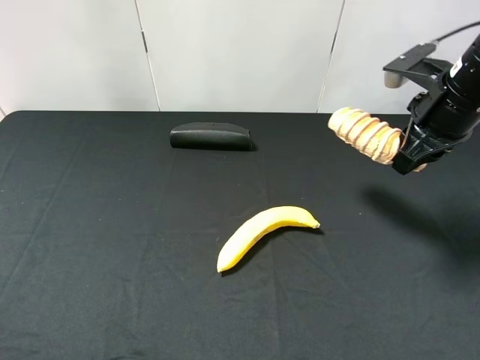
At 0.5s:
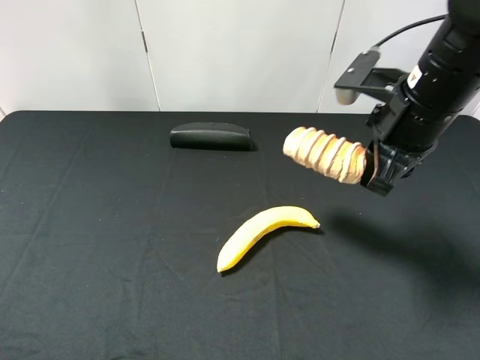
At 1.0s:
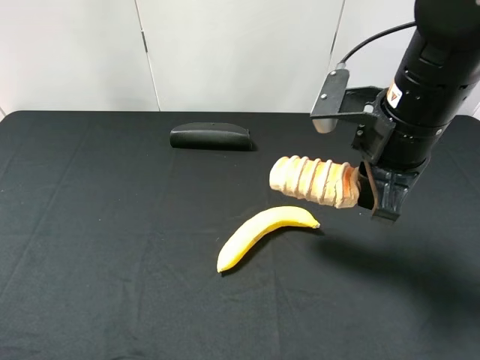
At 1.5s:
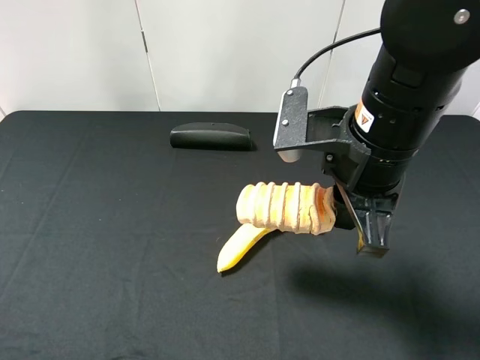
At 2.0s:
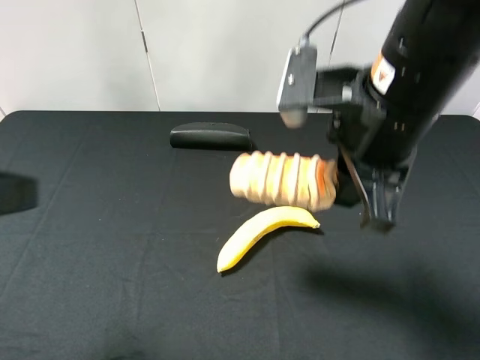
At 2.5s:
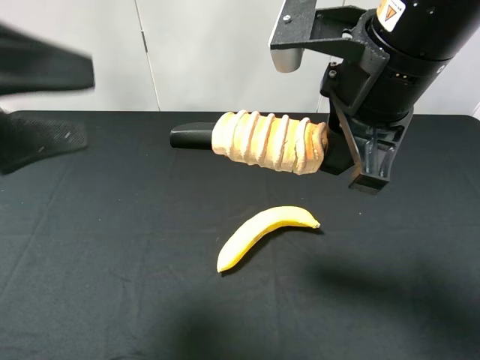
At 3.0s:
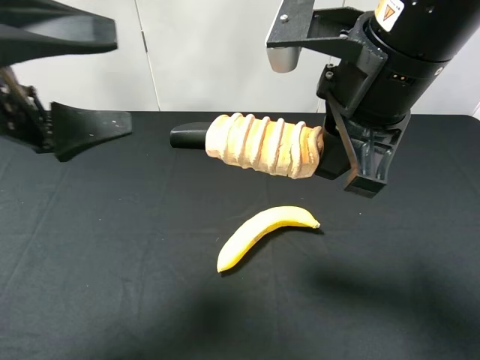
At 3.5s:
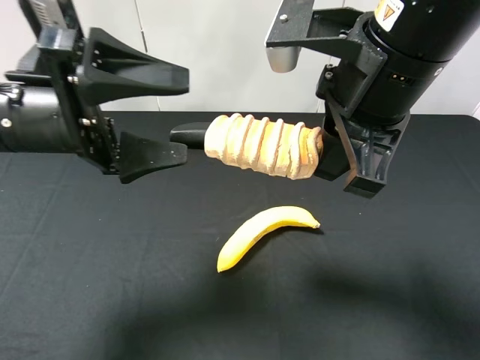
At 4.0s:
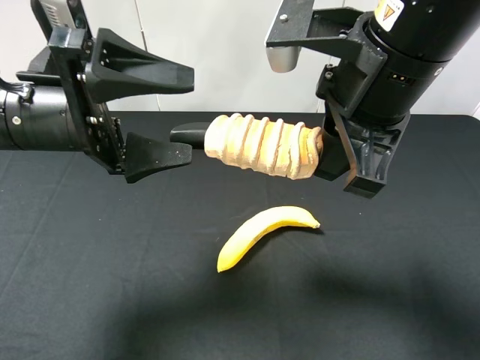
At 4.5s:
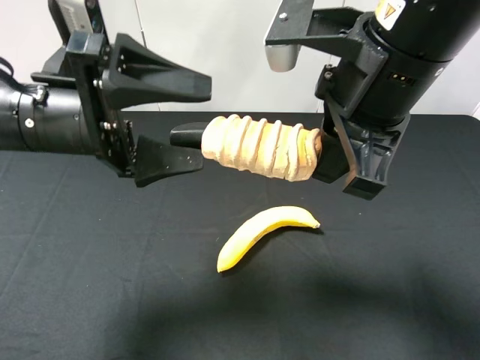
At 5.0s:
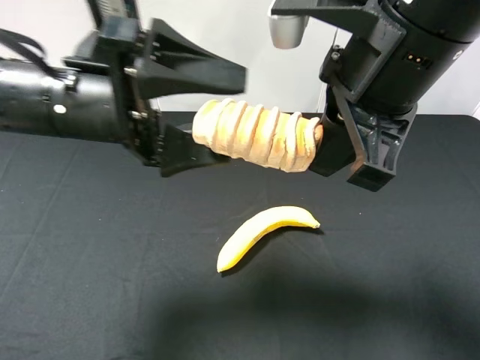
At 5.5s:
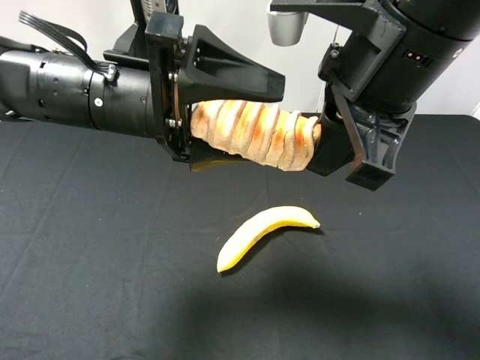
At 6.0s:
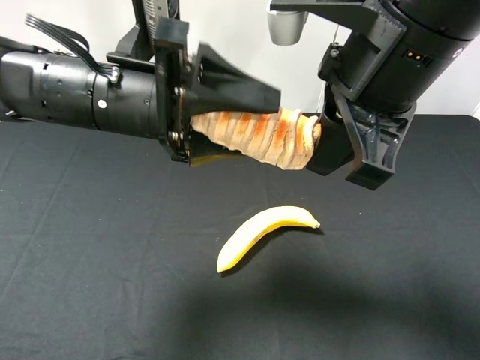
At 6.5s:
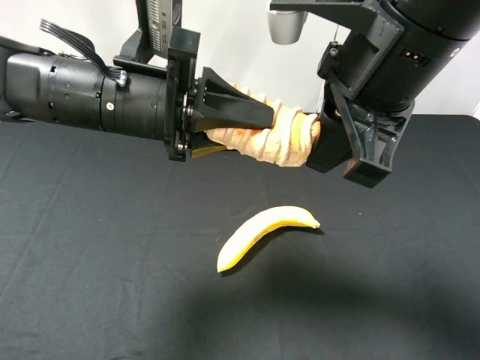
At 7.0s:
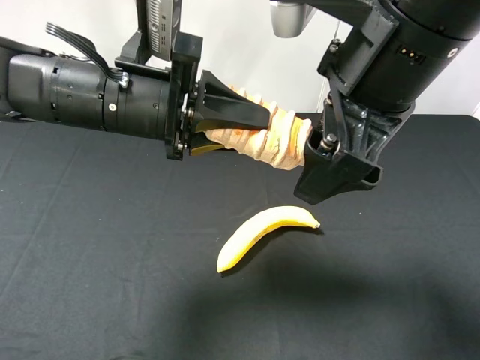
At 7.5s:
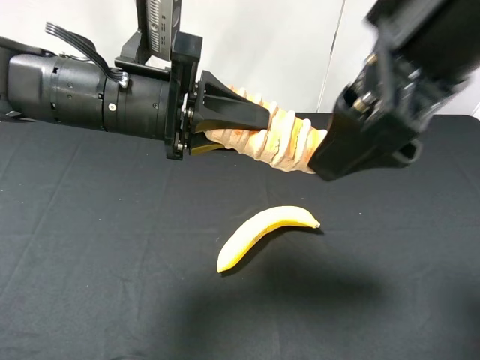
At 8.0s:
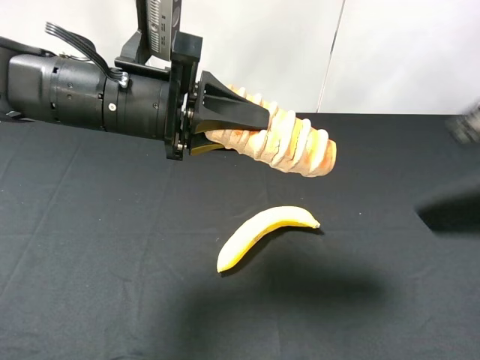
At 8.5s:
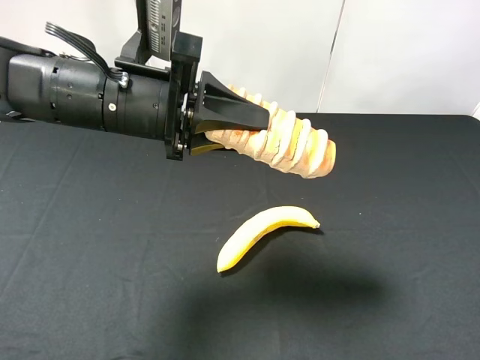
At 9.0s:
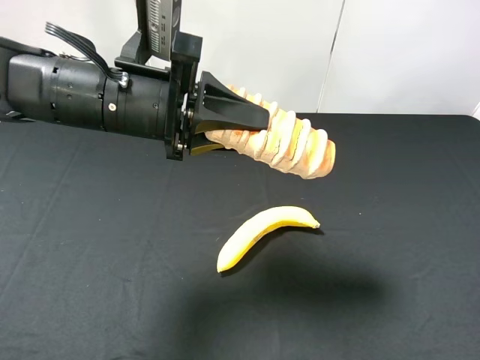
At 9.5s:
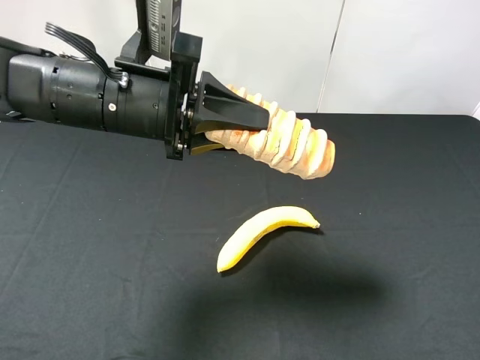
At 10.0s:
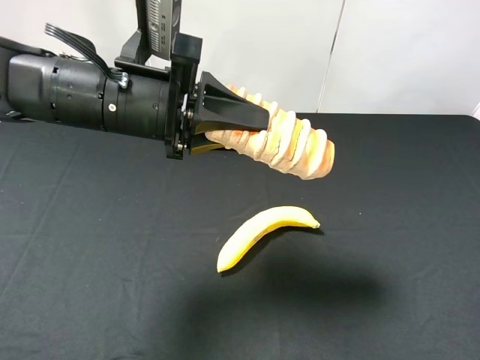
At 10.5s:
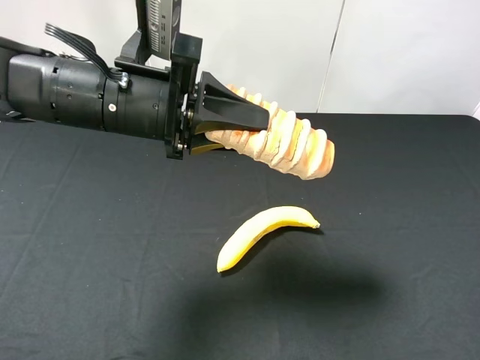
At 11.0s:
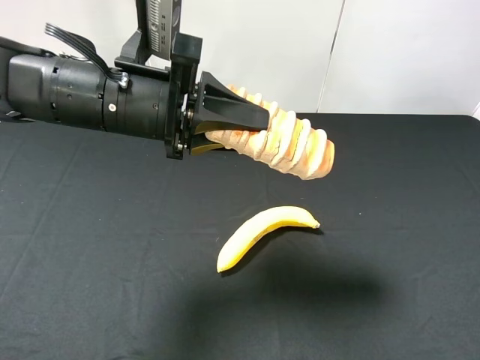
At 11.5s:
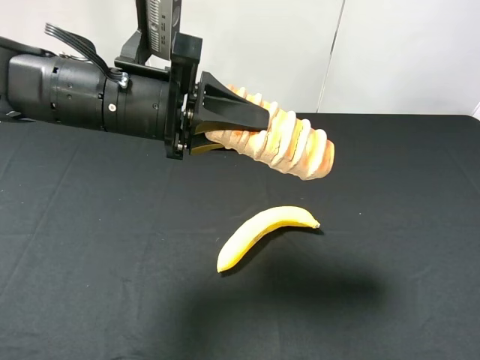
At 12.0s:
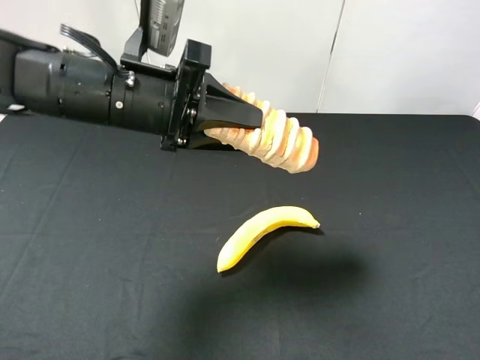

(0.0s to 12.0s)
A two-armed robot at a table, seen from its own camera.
Task of the whole recording: use the right gripper to pick up the item and transfer it from the right gripper to the left gripper.
Step, 0.0s - 7.0s: Pass the bread to the left gripper.
0.0s - 2.0s: The right gripper shifts approximately 15 cm to the left and backward, while the left gripper moves forward and to the right, about 10 cm.
2.0s - 4.0s: The left gripper goes some 15 cm forward, to the right and downward.
4.0s - 6.0s: The left gripper shifts some 5 cm to the right, and closes up.
6.0s - 8.0s: The left gripper closes its fingers, while the right gripper travels to the right and backward by about 15 cm, and opens up.
8.0s - 10.0s: The right gripper travels downward, to the right and backward by approximately 15 cm.

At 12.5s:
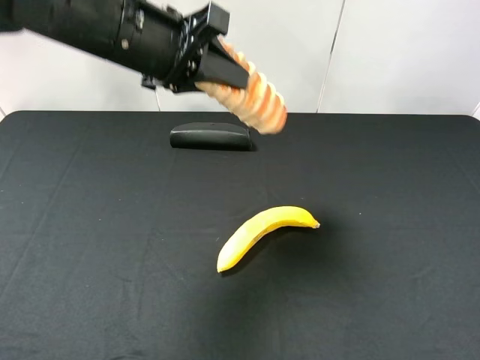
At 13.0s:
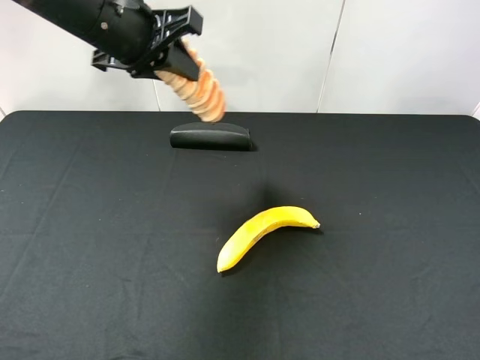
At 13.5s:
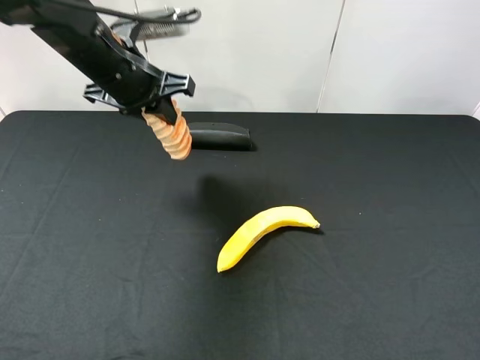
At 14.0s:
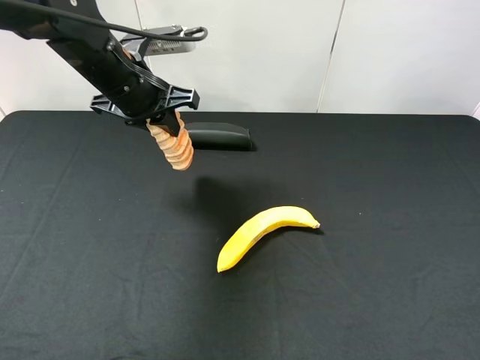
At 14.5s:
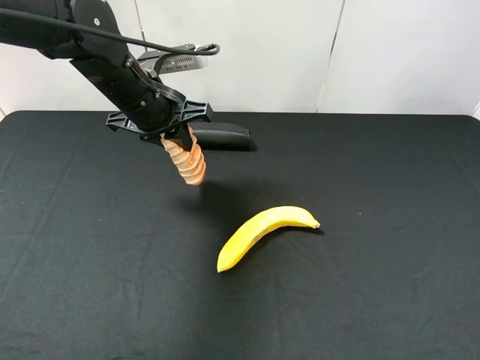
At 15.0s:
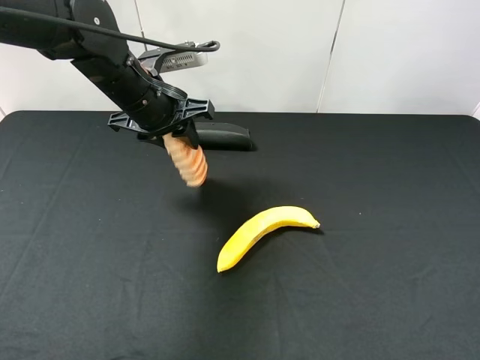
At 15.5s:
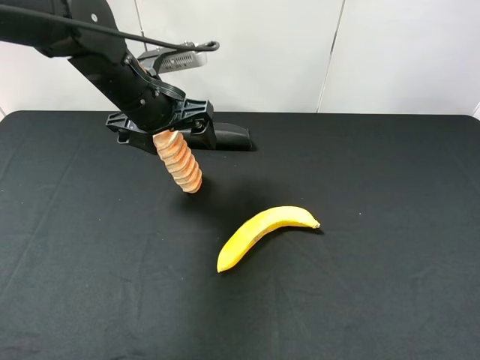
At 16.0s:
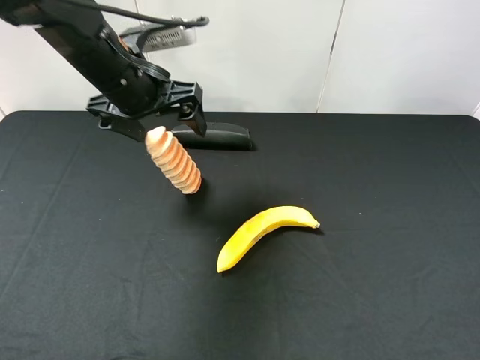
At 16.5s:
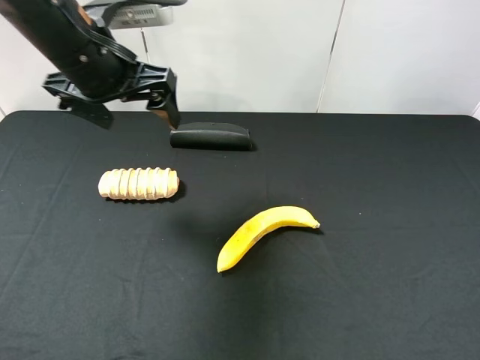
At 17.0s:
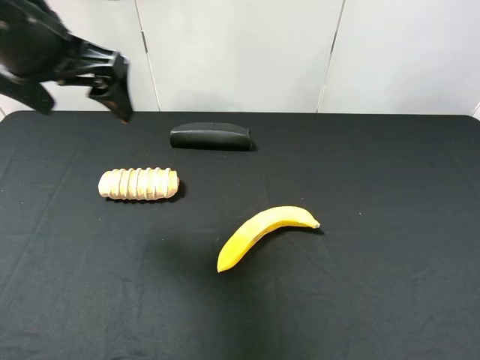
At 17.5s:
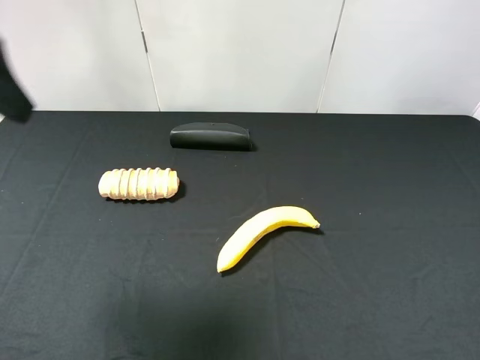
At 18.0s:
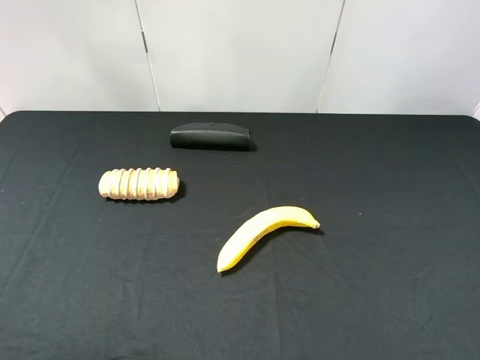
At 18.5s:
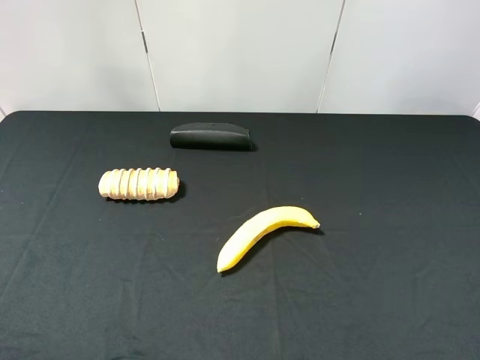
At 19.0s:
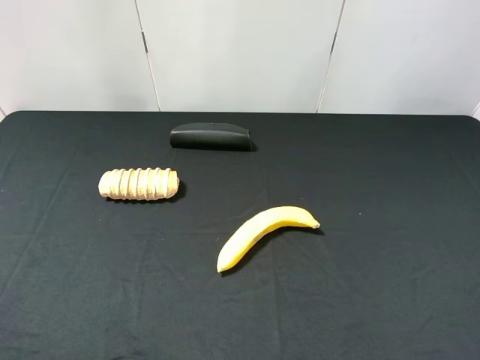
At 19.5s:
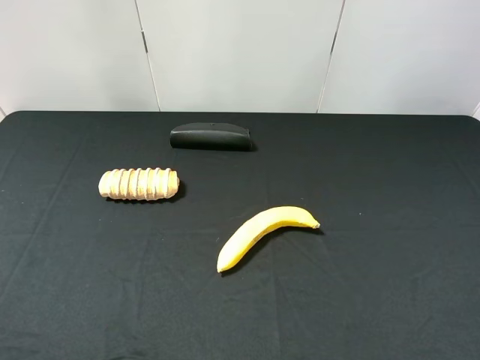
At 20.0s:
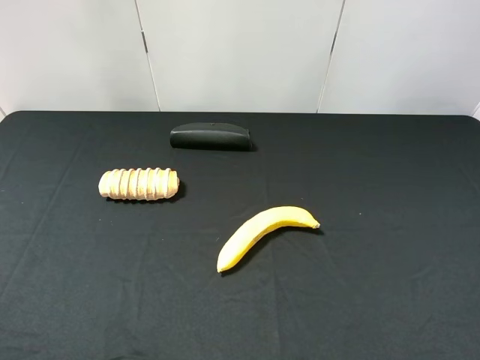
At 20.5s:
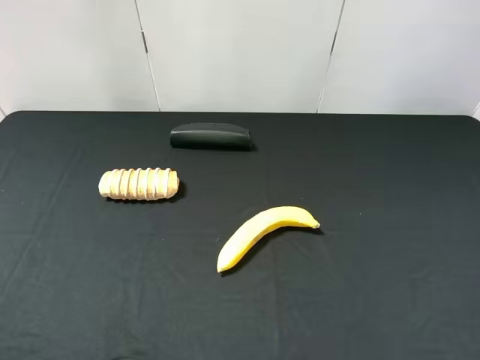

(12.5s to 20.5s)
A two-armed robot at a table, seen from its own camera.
Task of the whole recording: use the right gripper to pick up the item and transfer it from the right gripper to the left gripper.
Step, 12.5s - 15.5s: The left gripper places bread on the left side of the table.
12.5s - 14.5s: The left gripper goes approximately 10 cm downward.
14.5s - 16.5s: The left gripper goes roughly 10 cm upward, and opens up.
16.5s - 18.5s: The left gripper is displaced backward and to the left by about 30 cm.
